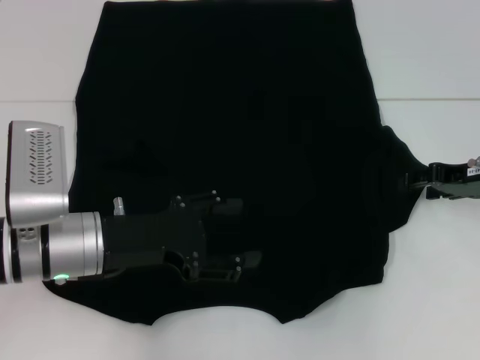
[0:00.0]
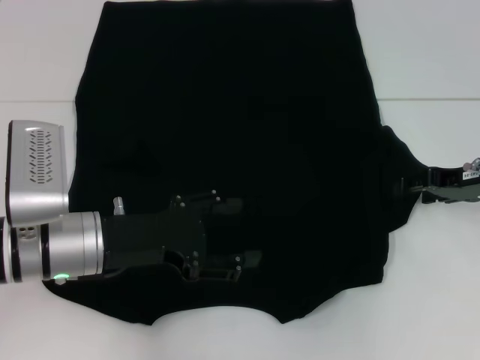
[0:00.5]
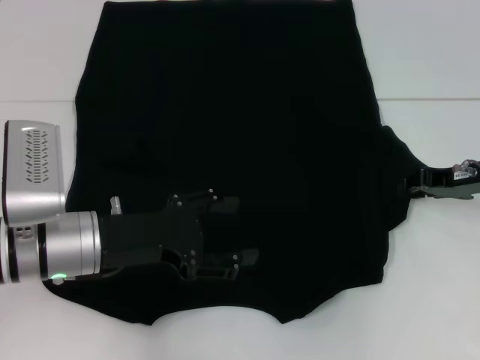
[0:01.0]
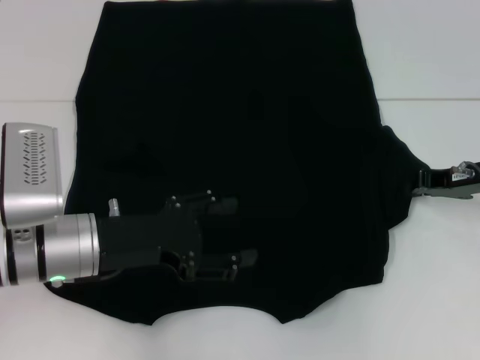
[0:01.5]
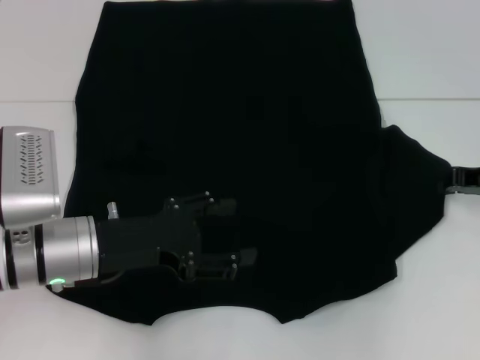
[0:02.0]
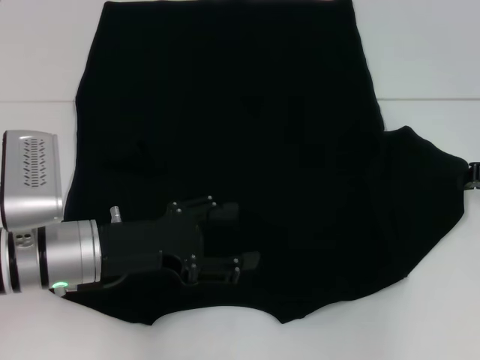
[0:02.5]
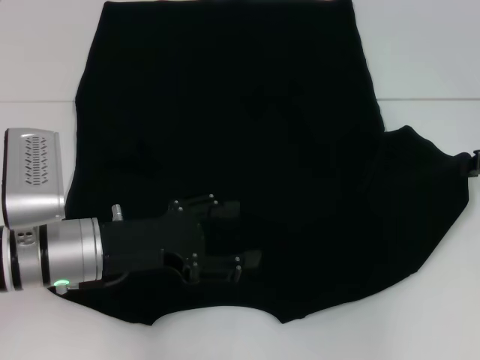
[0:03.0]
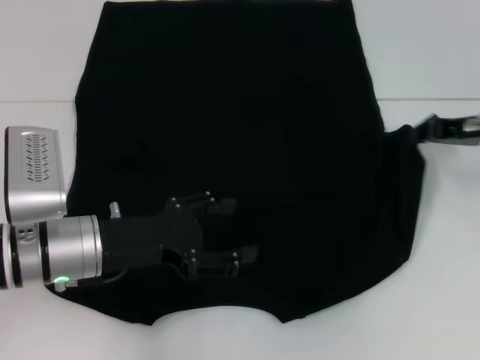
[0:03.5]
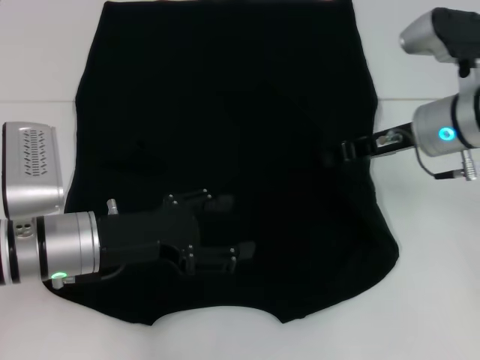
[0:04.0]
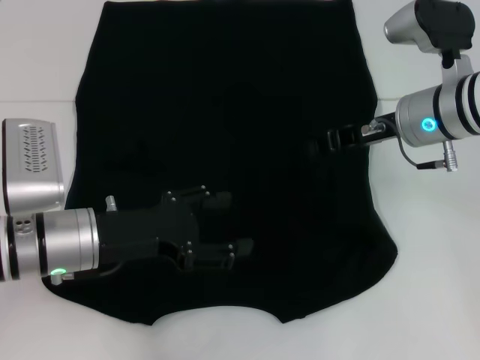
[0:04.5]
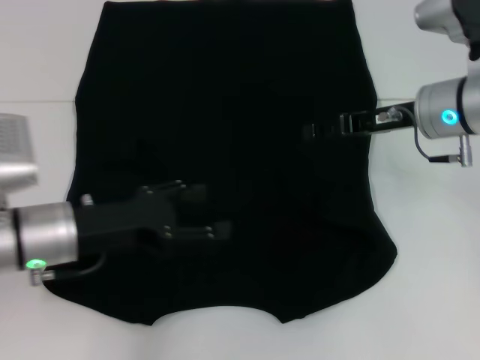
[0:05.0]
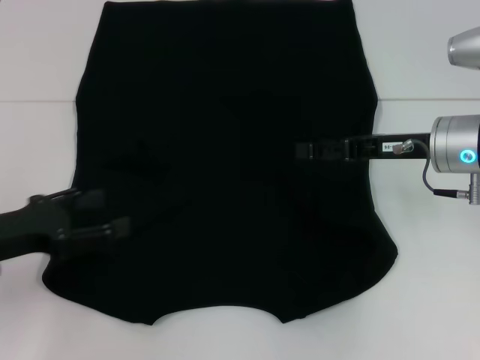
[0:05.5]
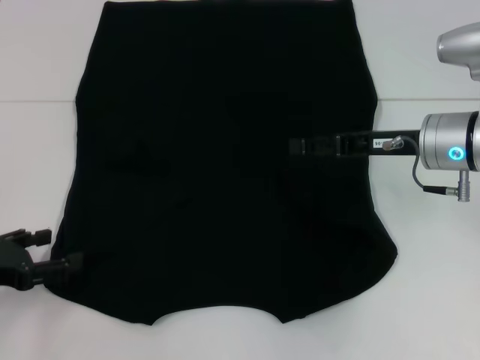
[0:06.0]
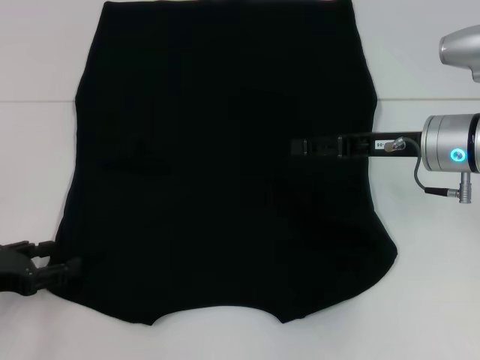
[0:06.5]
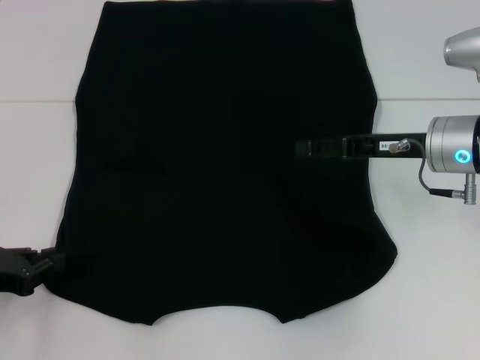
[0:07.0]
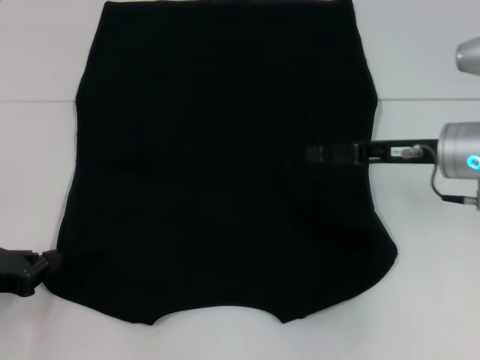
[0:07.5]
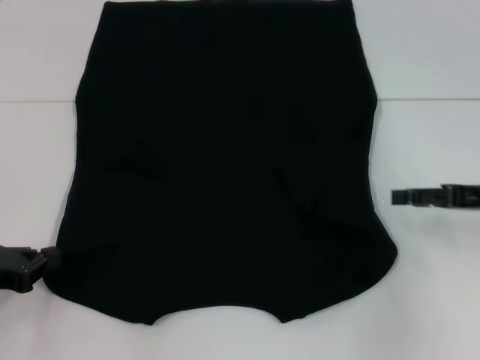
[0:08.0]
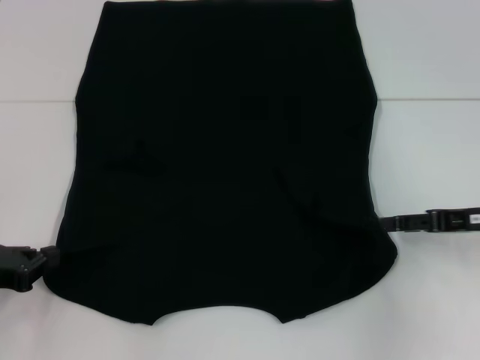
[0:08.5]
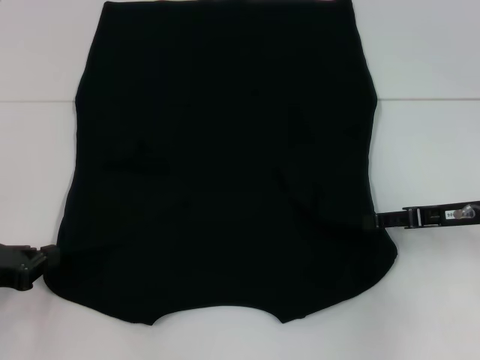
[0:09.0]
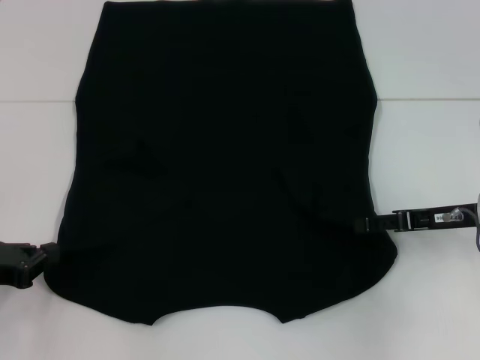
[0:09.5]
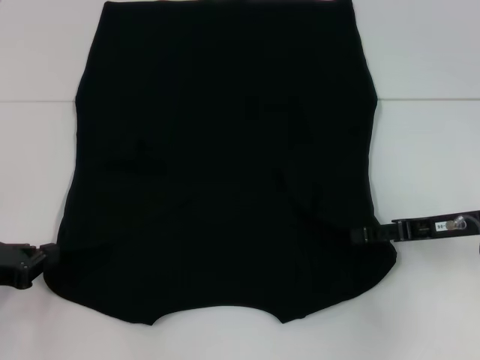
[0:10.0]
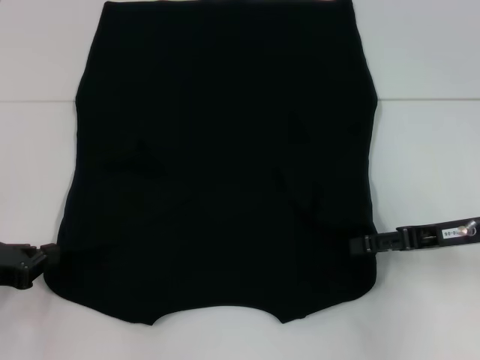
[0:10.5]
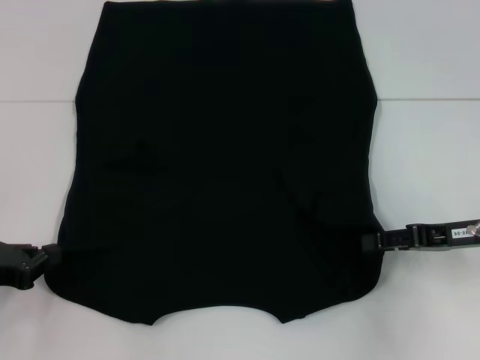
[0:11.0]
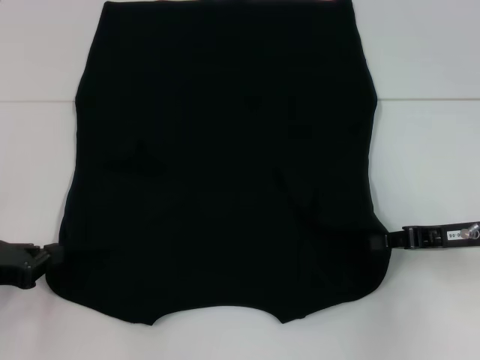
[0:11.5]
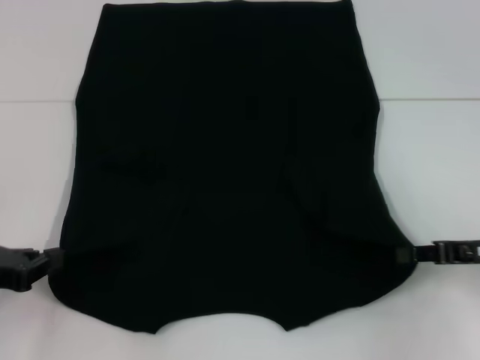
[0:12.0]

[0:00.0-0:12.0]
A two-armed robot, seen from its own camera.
Step, 0:00.0 to 0:04.5: Fold the bottom right sleeve with your right hand.
Step, 0:05.0 to 0:07.5: Grab the bottom left corner with your left hand.
0:00.0 to 0:02.0: The right gripper closes up.
0:02.0 to 0:04.0: The right gripper travels to the left by some 10 cm.
0:04.0 to 0:06.0: The right gripper opens; the left gripper moves to the left, about 15 cm.
0:06.0 to 0:08.0: The right gripper travels to the right by about 10 cm, while the left gripper closes its fingers.
0:08.0 to 0:10.0: The right gripper moves some 5 cm.
0:10.0 to 0:12.0: The right gripper changes place by approximately 5 cm, and closes its fingers.

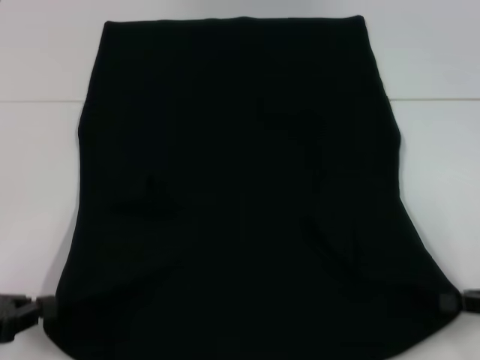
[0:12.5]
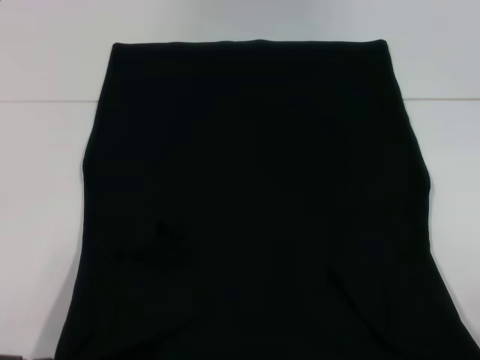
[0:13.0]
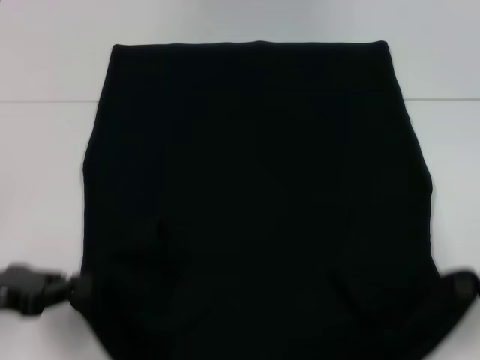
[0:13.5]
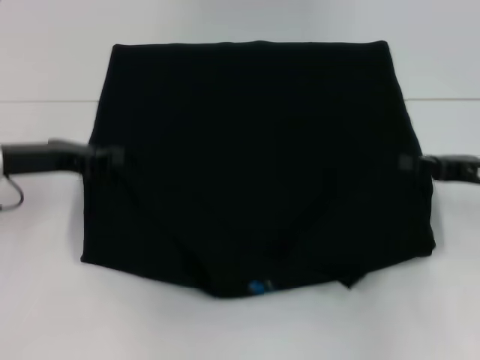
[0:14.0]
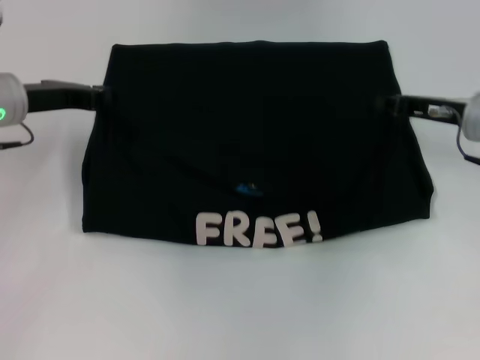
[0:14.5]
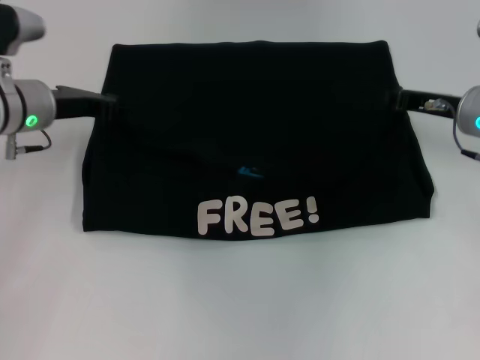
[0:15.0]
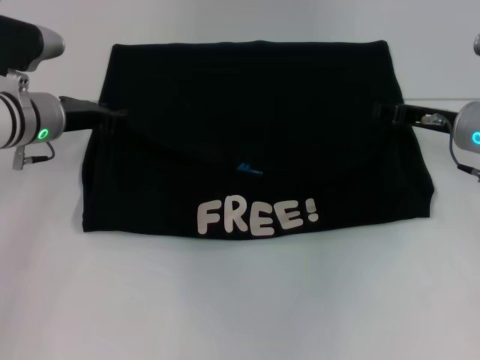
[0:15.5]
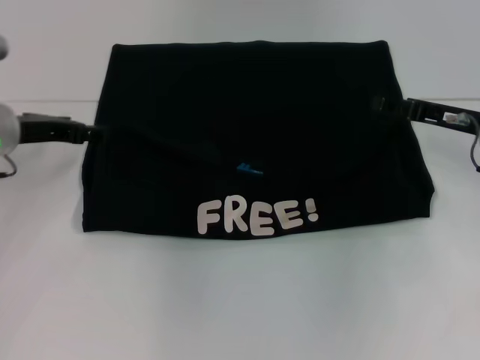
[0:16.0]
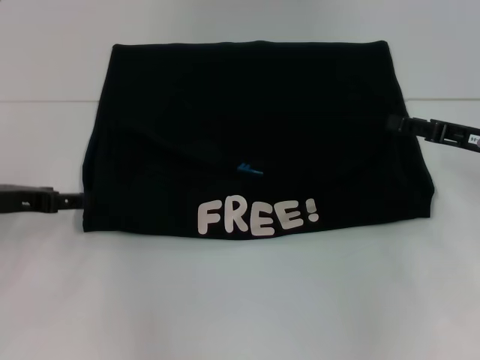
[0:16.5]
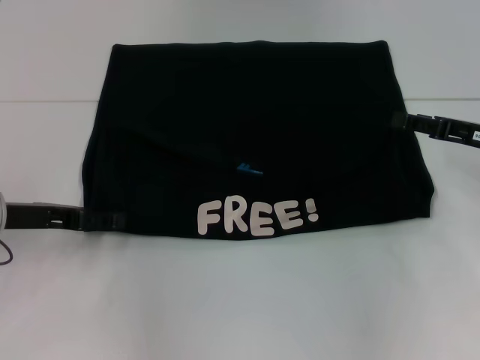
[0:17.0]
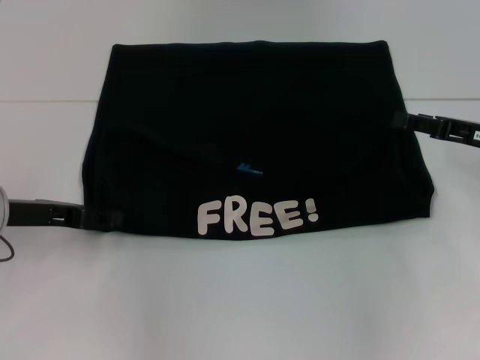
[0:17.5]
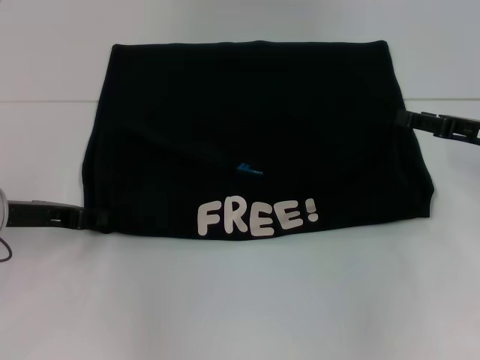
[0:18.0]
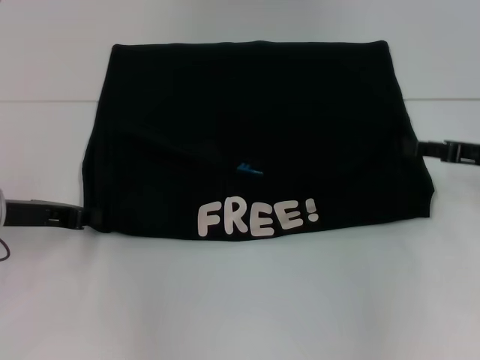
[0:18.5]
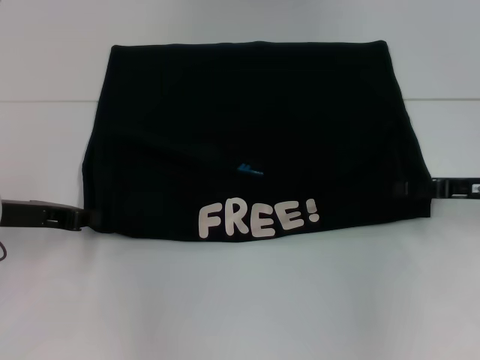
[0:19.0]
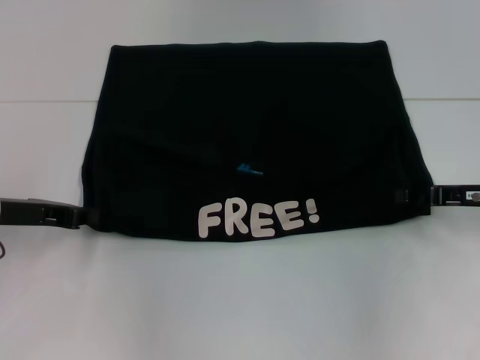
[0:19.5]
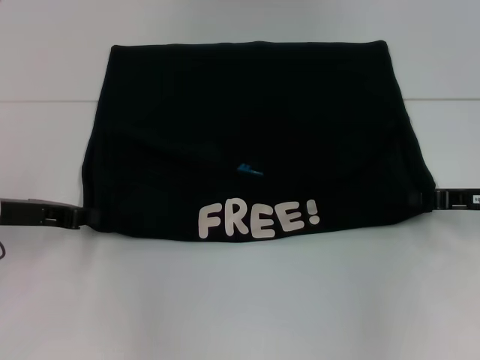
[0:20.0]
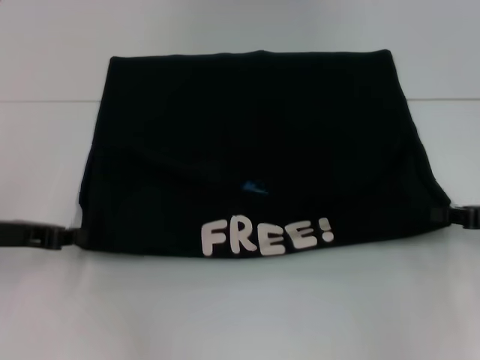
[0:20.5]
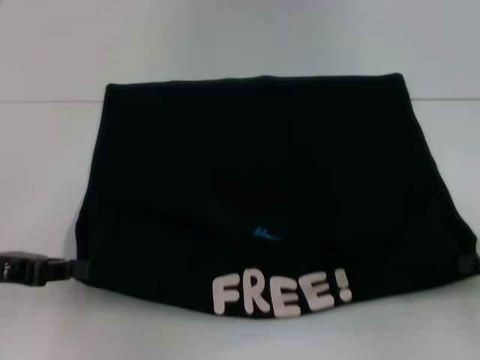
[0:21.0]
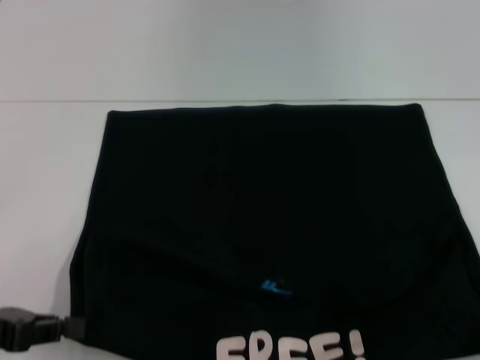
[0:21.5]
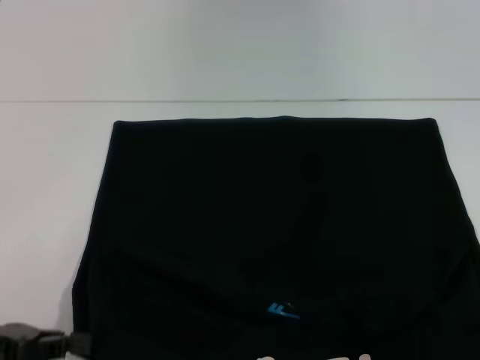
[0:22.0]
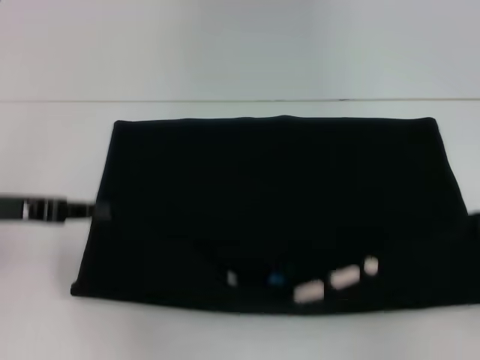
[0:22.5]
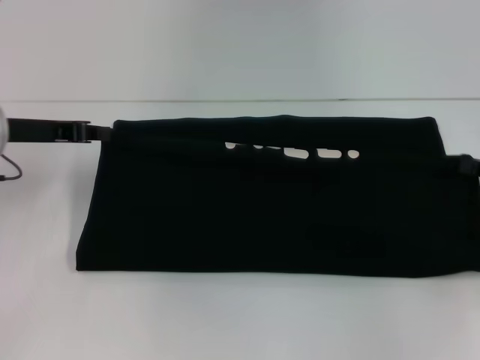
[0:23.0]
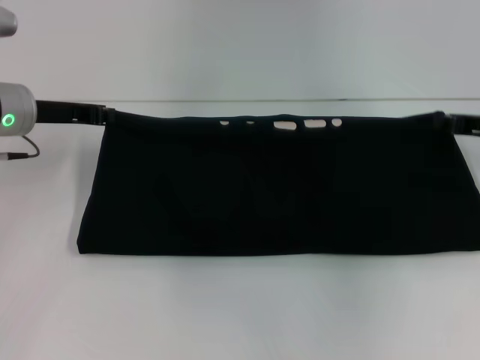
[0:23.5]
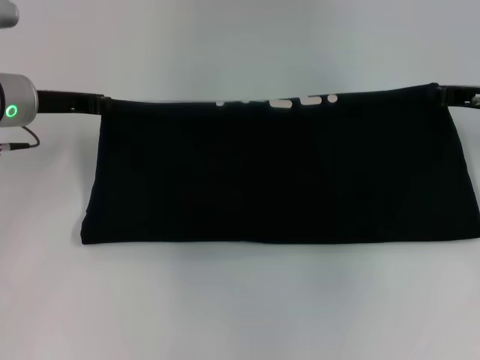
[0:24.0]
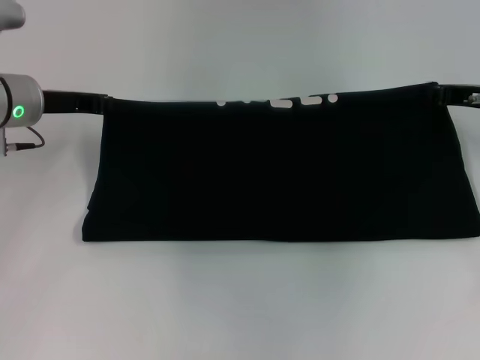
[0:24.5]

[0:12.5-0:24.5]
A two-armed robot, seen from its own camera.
Step, 0:12.5 to 0:15.5: Fold the clothes with your left hand.
Step, 0:12.5 to 0:15.5: Fold the clothes with your right hand.
Step, 0:16.0 to 0:21.5: Pull the clothes with your left hand.
Step, 0:16.0 to 0:21.5: Pull the clothes with your right hand.
0:12.5 to 0:14.5: The right gripper goes about 20 cm forward and to the left. The left gripper travels forward by about 20 cm.
0:14.5 to 0:16.5: The right gripper moves some 5 cm, and opens up; the left gripper shifts roughly 10 cm backward, and opens up.
0:16.5 to 0:18.5: The left gripper closes.
0:18.5 to 0:20.5: The right gripper moves approximately 5 cm, and closes up.
0:20.5 to 0:22.5: The right gripper heads backward, covering about 5 cm. The left gripper reaches approximately 10 cm backward, then returns.
0:22.5 to 0:24.5: The left gripper heads forward, covering some 15 cm. The right gripper travels forward and to the left by some 20 cm.

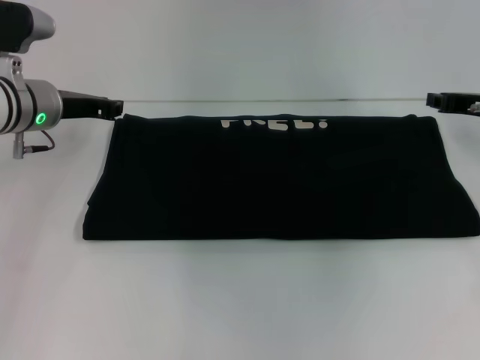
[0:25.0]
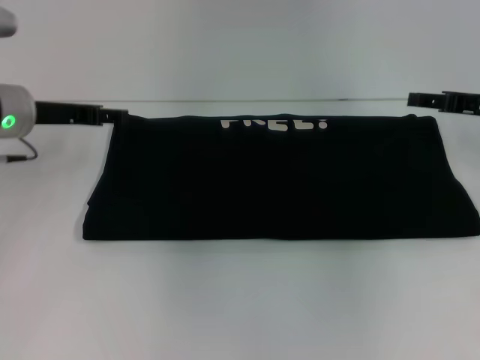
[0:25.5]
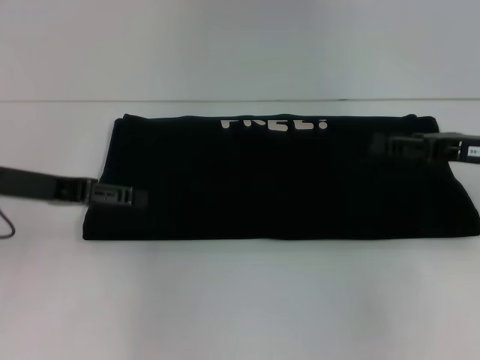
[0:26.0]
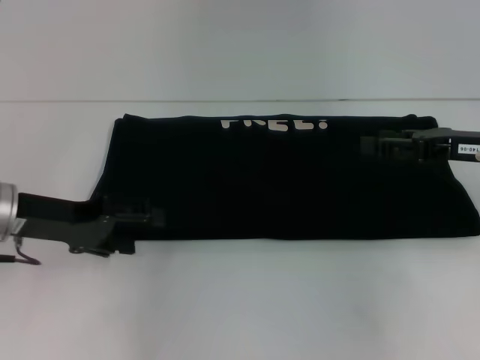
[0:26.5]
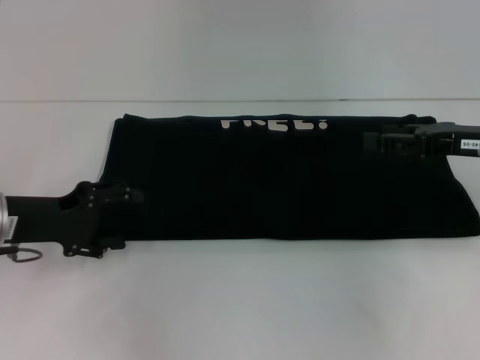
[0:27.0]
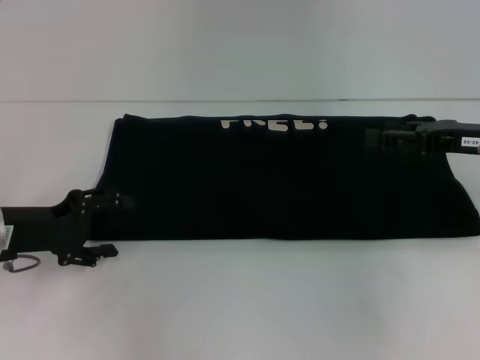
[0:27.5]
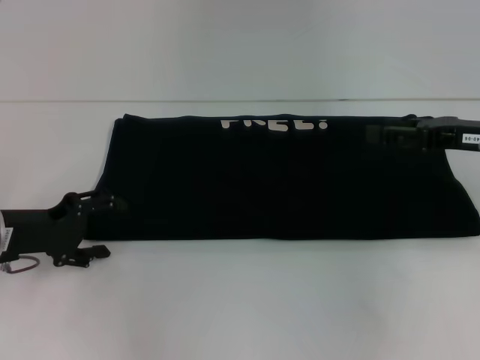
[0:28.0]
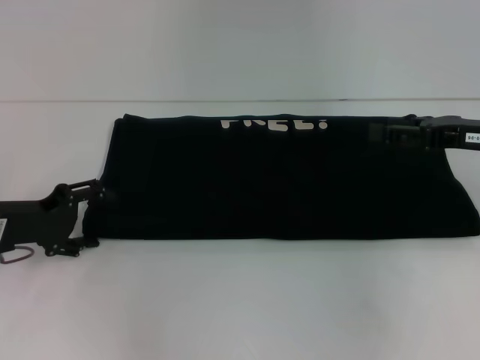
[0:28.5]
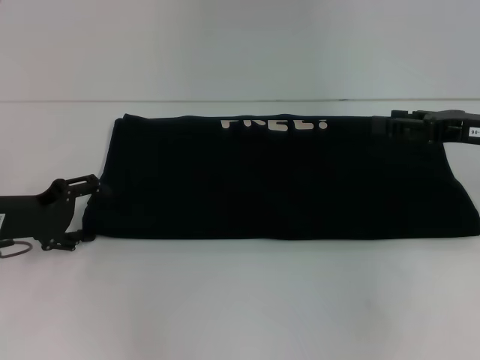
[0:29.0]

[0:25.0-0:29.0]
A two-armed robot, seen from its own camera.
0:25.0 to 0:27.0: The right gripper heads backward, covering roughly 5 cm, and opens its fingers, while the left gripper travels backward by about 10 cm, and opens its fingers.
0:27.0 to 0:29.0: The grippers make only small movements.
